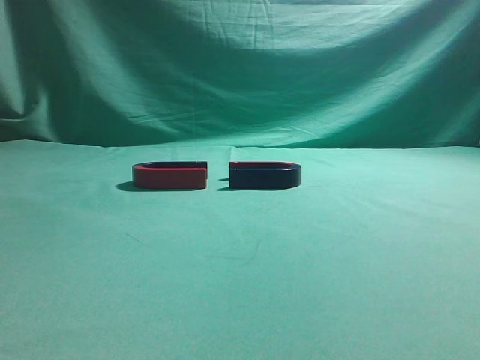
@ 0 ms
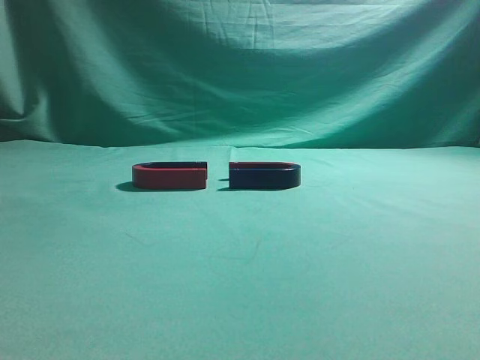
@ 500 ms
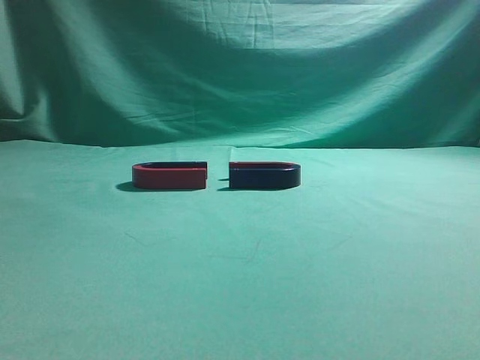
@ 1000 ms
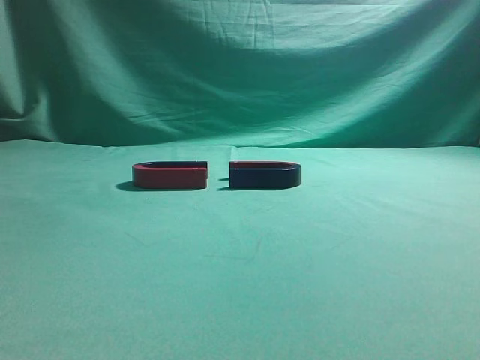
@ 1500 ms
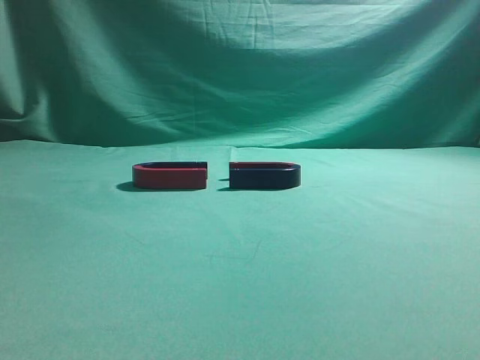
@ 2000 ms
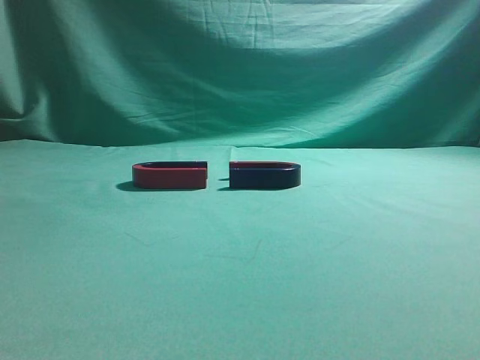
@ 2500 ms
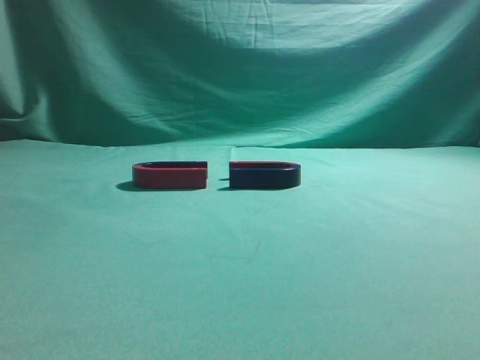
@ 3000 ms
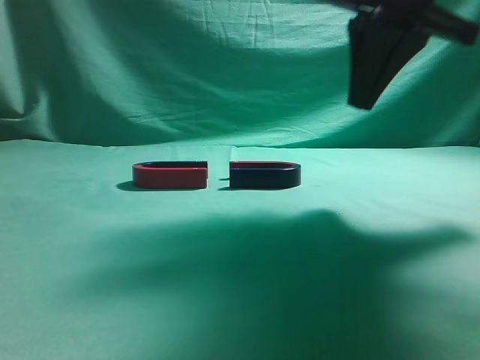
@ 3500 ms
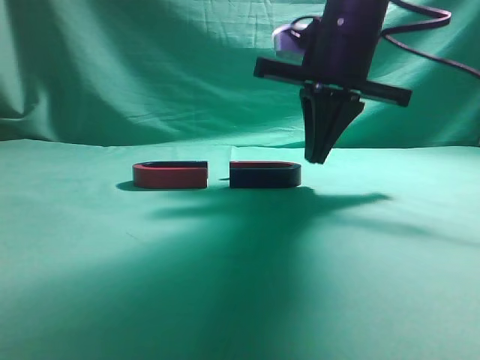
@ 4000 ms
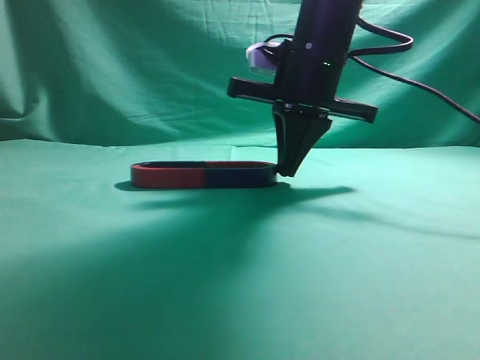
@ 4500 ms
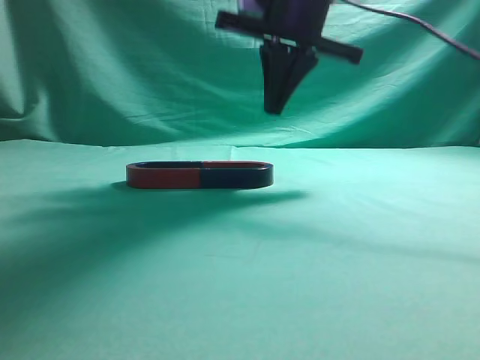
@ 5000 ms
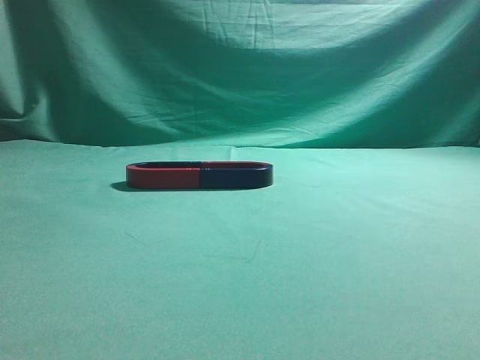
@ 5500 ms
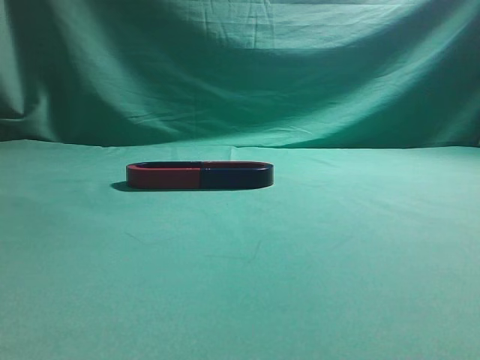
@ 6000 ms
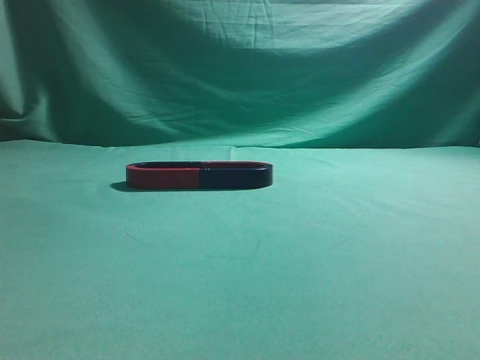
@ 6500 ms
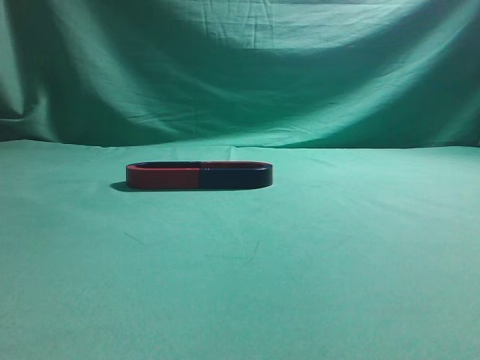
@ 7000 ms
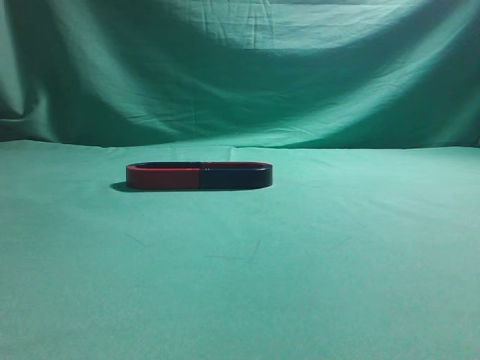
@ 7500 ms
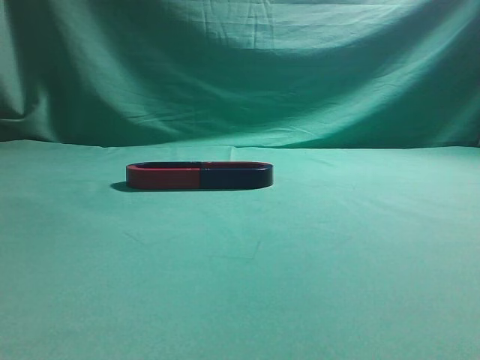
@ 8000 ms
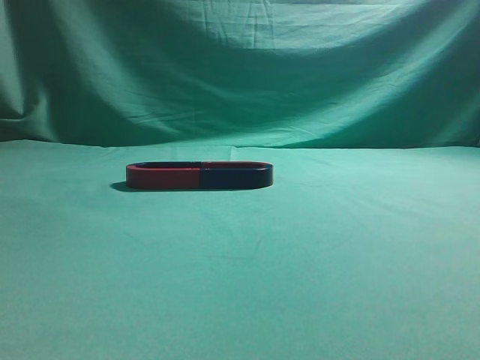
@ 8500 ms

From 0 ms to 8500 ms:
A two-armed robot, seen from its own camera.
Task of the whole recording: push the magnet on the table from its original position to another position.
Step, from 0 ms to 4500 ms: Push the magnet on the right to connect the magnet on the left.
From 2000 ms to 4000 ms: The right gripper shifts about 40 cm forward and to the left.
From 4000 ms to 6500 ms: The right gripper travels backward, upward and to the right by about 40 cm.
